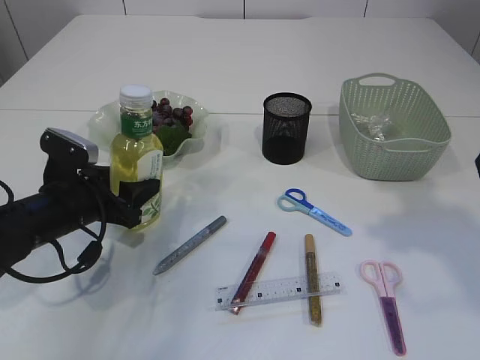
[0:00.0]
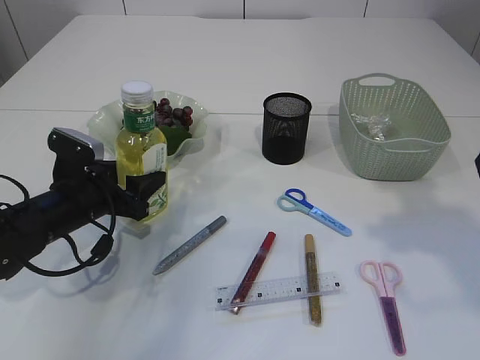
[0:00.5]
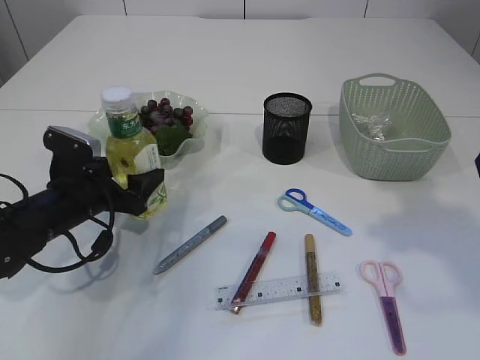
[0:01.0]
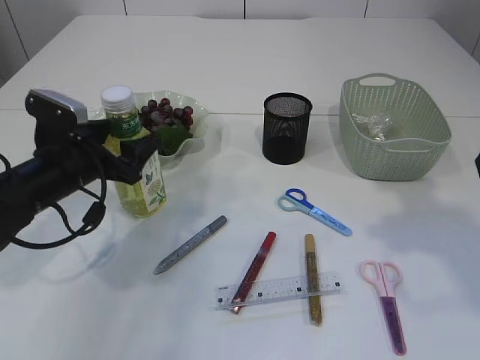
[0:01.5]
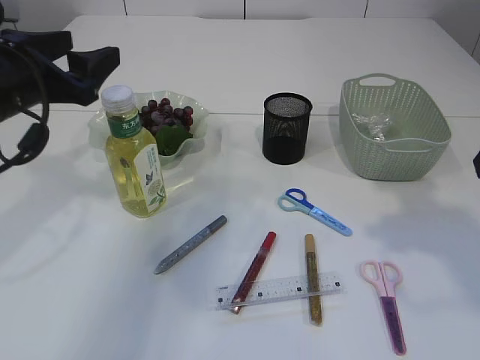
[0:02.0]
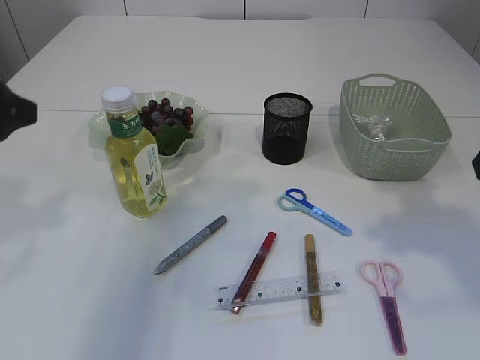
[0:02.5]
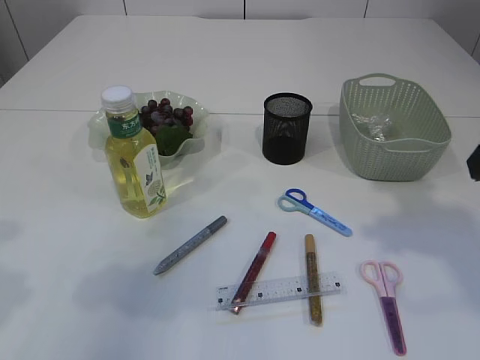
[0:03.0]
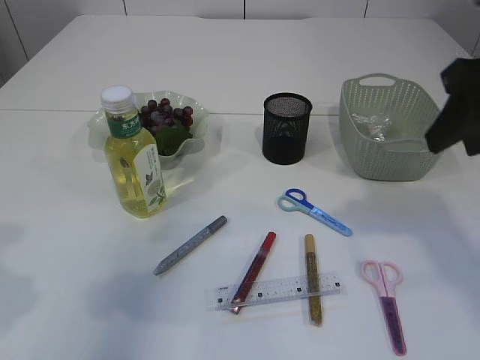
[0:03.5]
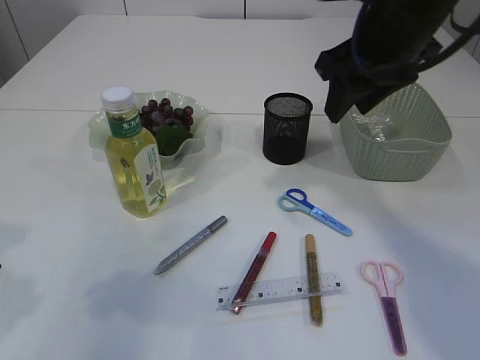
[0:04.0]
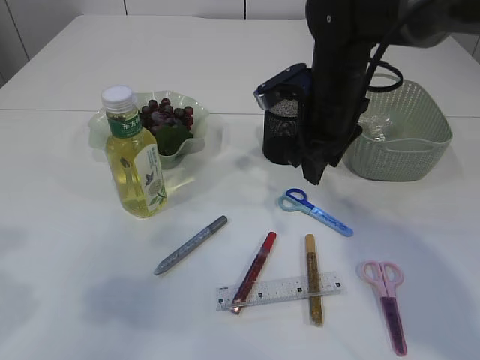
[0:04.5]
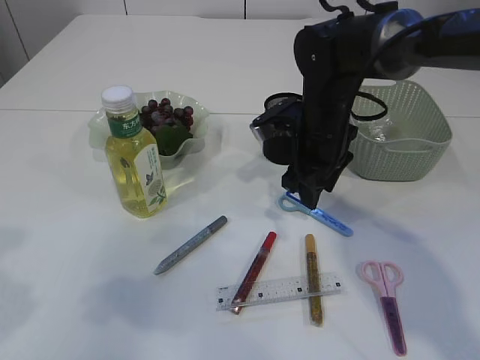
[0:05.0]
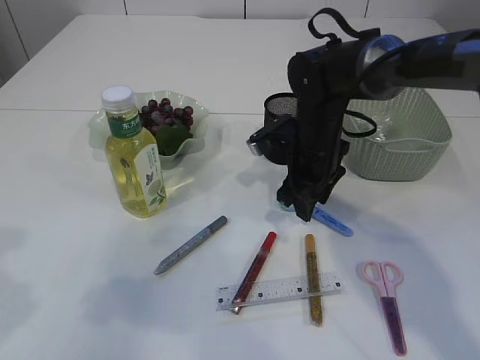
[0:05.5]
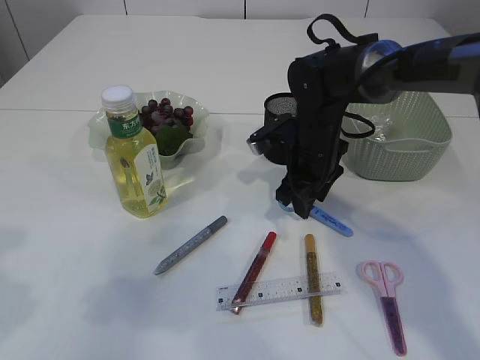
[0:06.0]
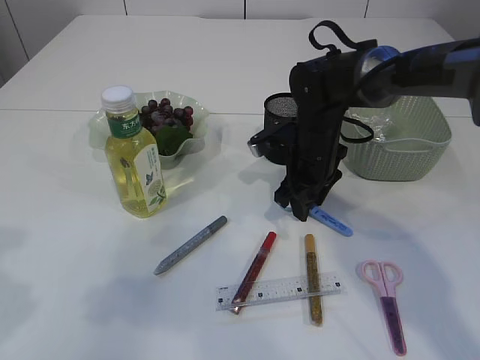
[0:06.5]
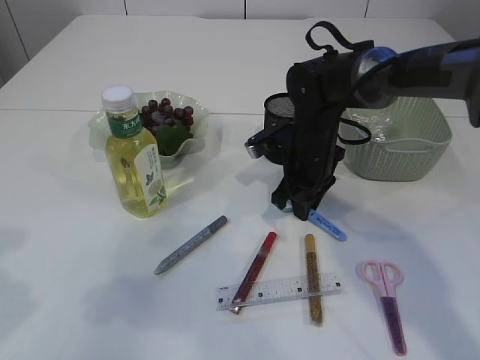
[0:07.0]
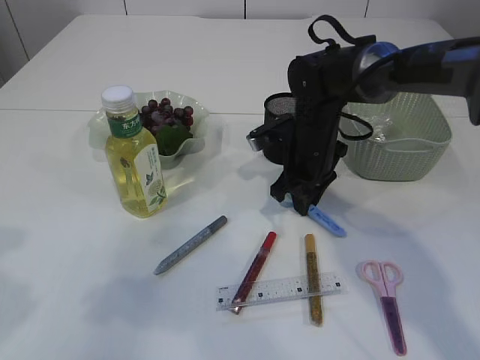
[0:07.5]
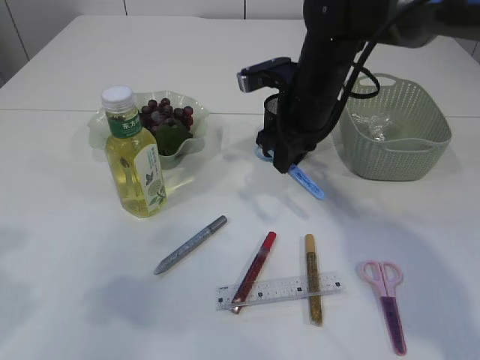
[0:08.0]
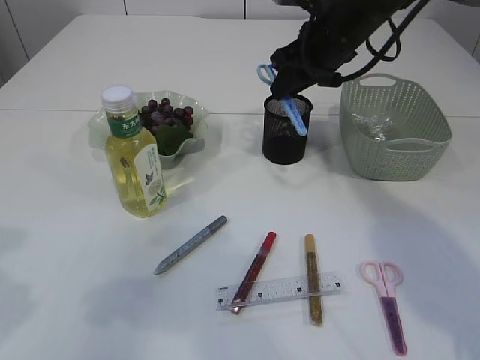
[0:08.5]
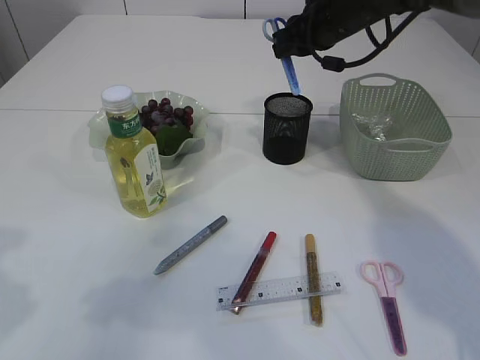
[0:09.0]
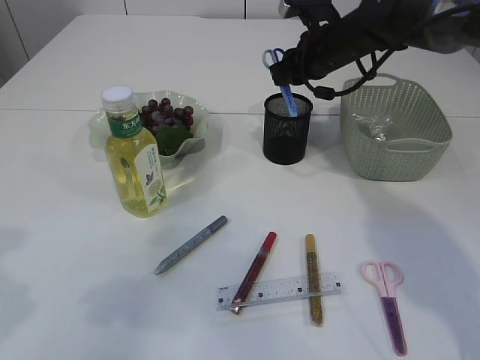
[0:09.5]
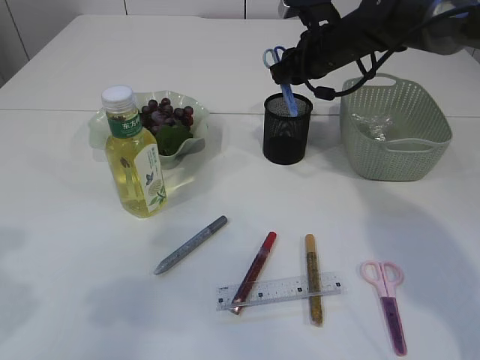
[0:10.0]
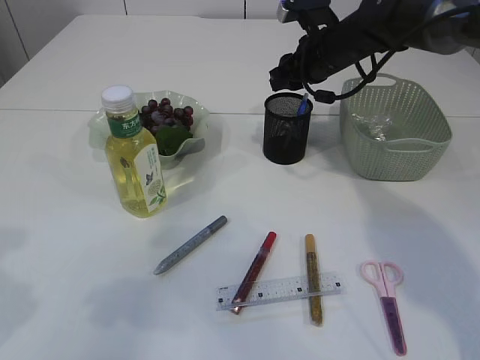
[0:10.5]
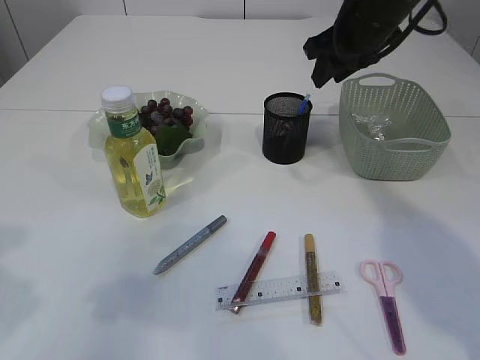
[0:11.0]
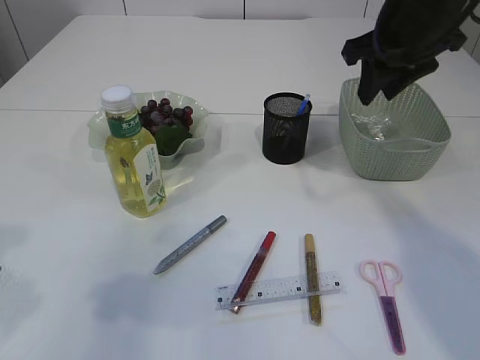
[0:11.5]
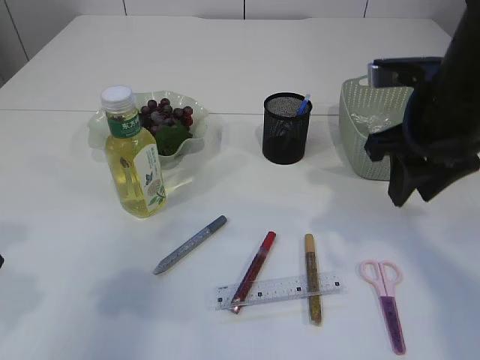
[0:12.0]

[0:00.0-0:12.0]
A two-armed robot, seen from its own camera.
Step, 0:02.0 to 0:07.5: pick up the blue scissors.
Step, 0:08.0 to 0:11.0: Place the blue scissors into the pen holder.
0:00.0 to 0:02.0: The left gripper heads upward, covering about 15 cm.
0:02.0 to 0:04.0: The right gripper is displaced forward and to the left by some 15 cm, while the left gripper travels backward by some 15 cm.
0:04.0 to 0:06.0: The right gripper moves downward, some 20 cm.
0:06.0 to 0:08.0: The right gripper moves upward, roughly 10 cm, and closes.
0:08.0 to 0:10.0: The right gripper travels forward by some 10 cm.
0:10.0 to 0:12.0: The right gripper travels backward by roughly 20 cm.

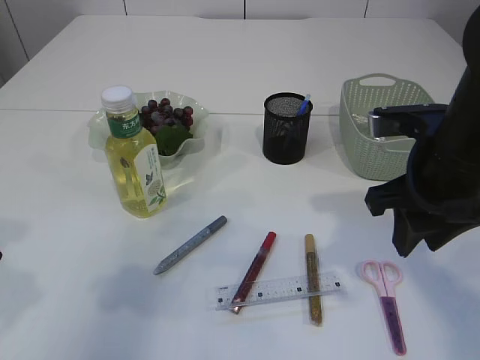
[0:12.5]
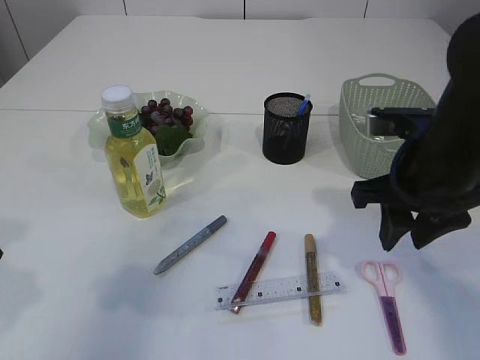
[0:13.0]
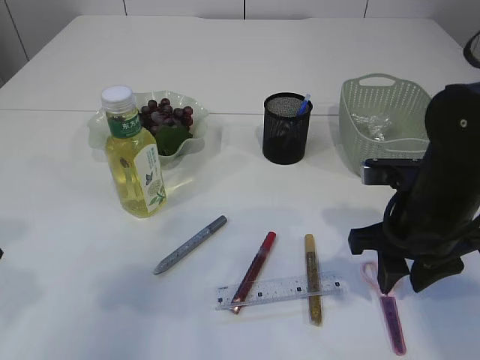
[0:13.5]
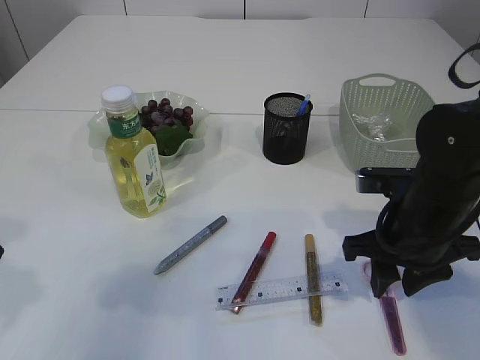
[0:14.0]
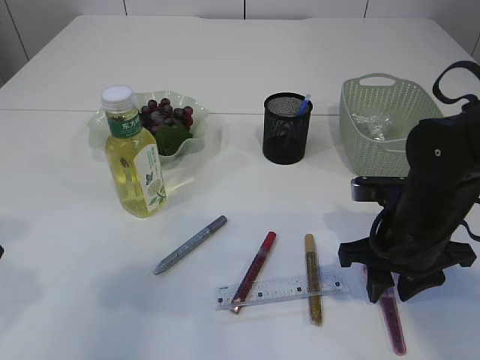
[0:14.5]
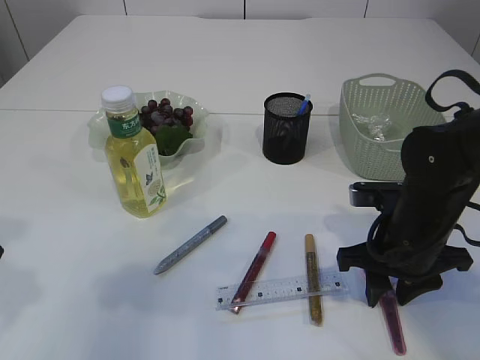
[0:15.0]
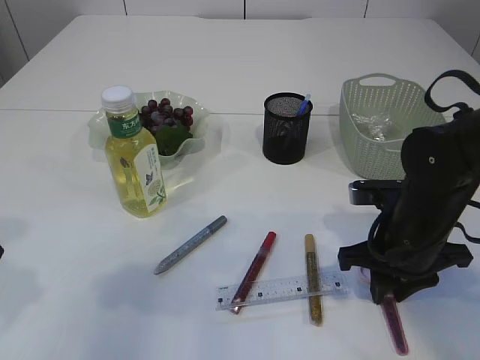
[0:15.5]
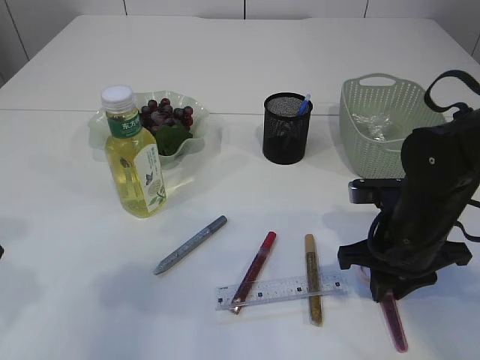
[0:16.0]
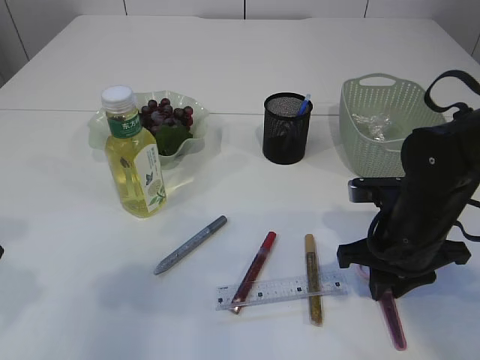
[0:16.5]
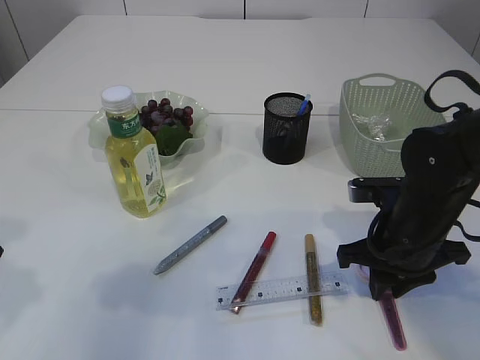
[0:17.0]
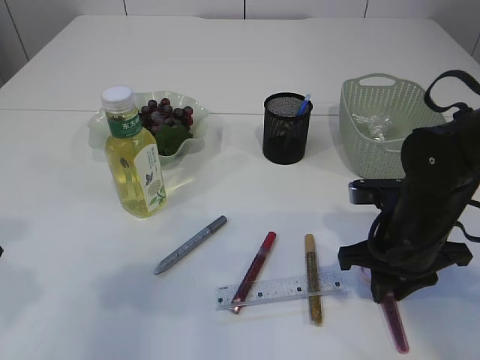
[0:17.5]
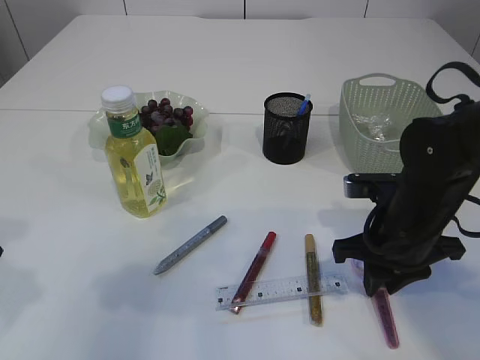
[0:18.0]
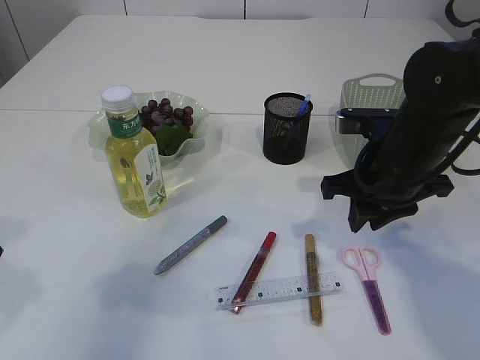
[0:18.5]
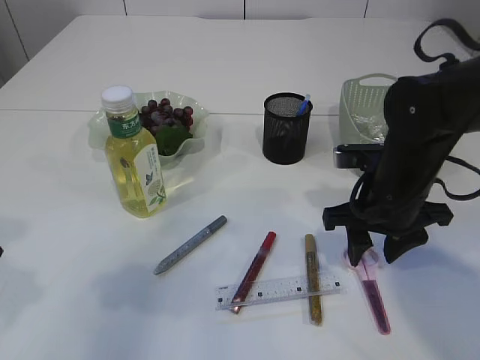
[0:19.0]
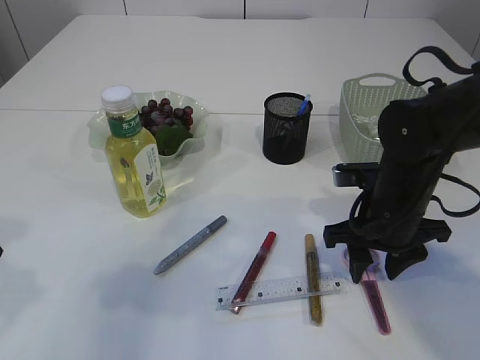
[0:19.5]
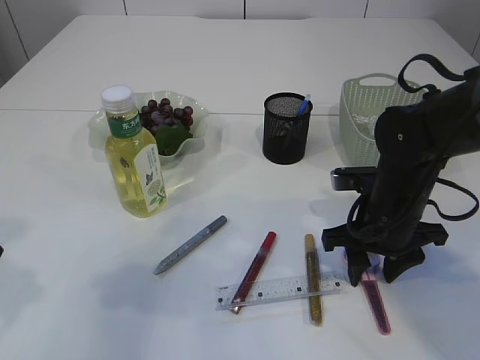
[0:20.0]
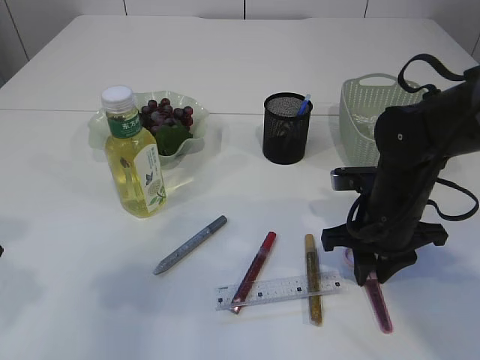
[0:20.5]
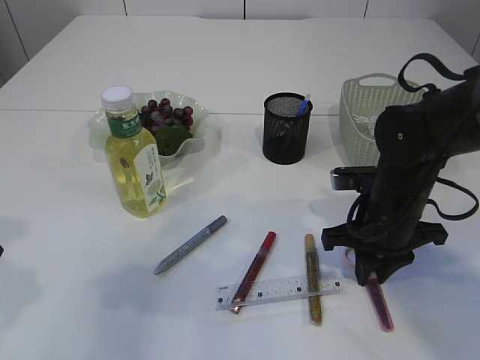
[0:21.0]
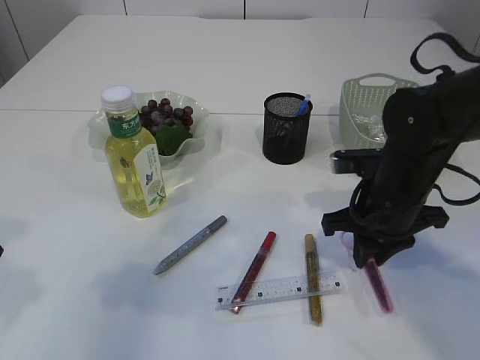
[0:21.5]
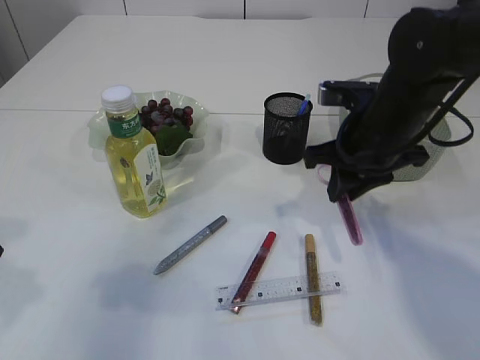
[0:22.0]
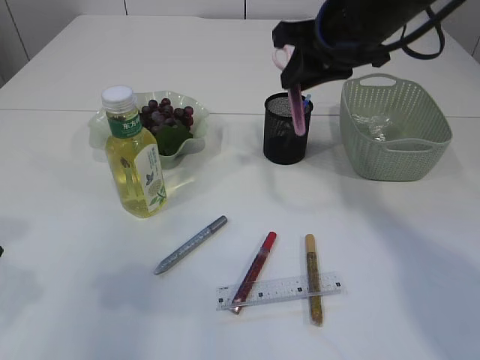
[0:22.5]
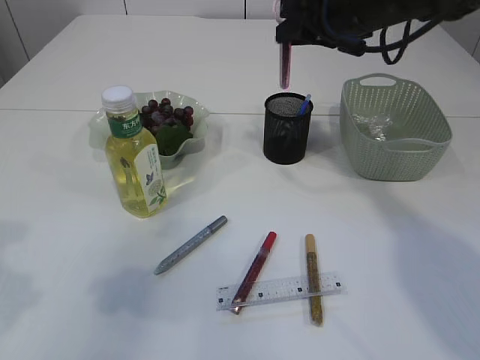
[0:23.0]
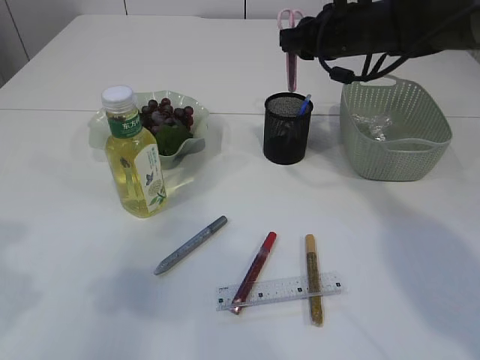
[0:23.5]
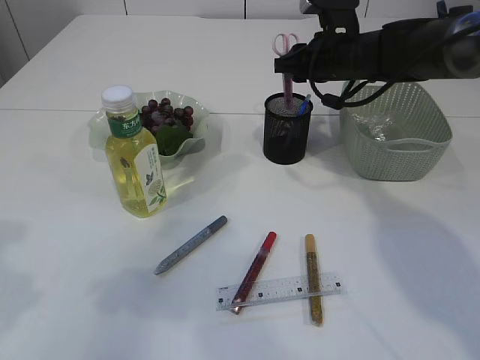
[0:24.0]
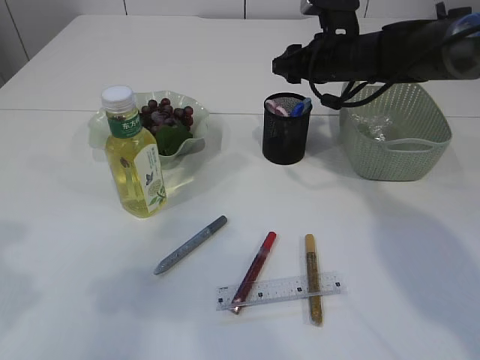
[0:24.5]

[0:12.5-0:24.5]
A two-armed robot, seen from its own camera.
Step, 0:12.5 to 0:21.5: pick up the pink scissors.
0:12.5 to 0:14.5: The right gripper travels downward by some 10 cm.
0:14.5 to 0:16.5: Both grippers stay put.
0:16.5 to 0:18.5: The right gripper travels upward by about 5 cm.
0:18.5 to 0:20.5: The right gripper heads downward, covering roughly 5 cm, and opens, then closes again.
0:20.5 to 0:22.5: The right gripper heads upward, covering roughly 20 cm.
0:22.5 to 0:24.5: The right gripper goes about 15 cm forward and downward, and opens.

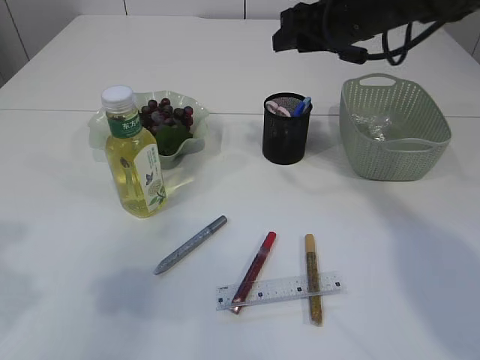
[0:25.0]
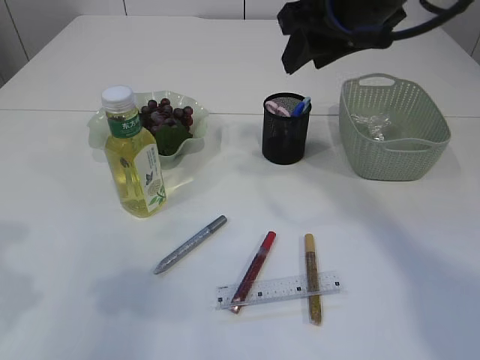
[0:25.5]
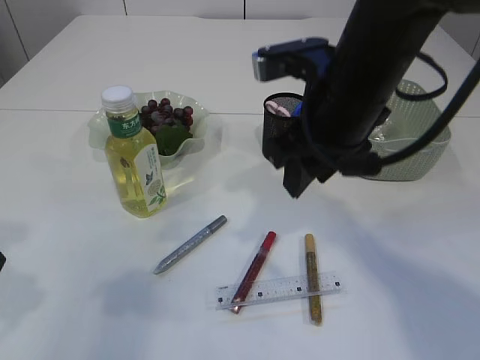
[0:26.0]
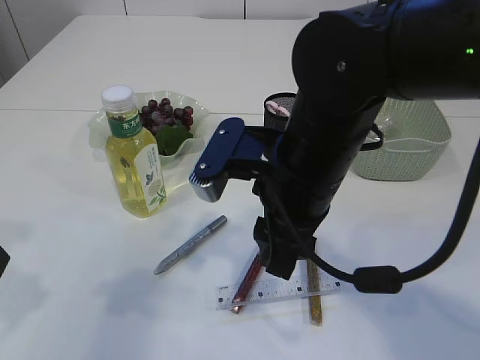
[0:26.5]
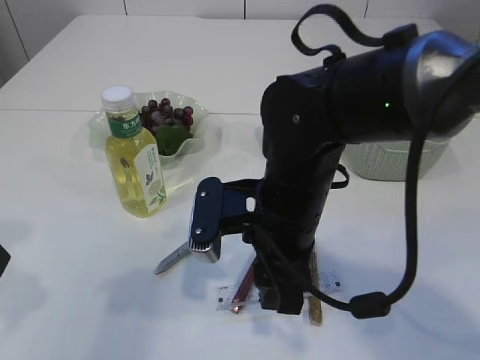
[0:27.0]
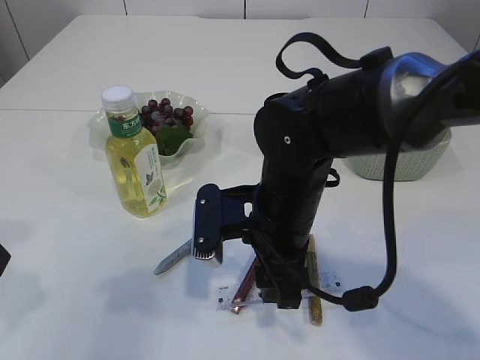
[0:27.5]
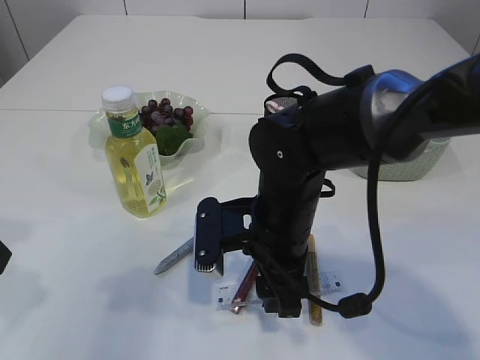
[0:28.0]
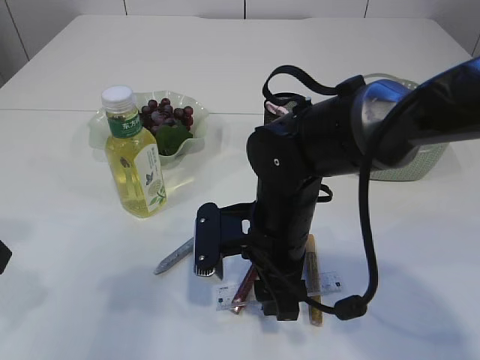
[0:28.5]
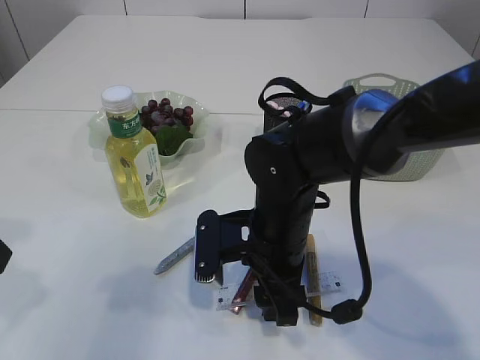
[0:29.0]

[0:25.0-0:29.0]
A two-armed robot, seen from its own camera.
0:25.0 to 0:27.0: The right gripper heads backward, downward and to the left, covering about 25 cm.
0:27.0 to 0:29.0: The right gripper moves downward, roughly 5 cm.
